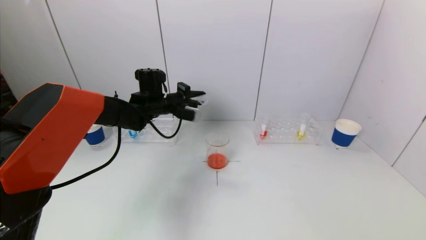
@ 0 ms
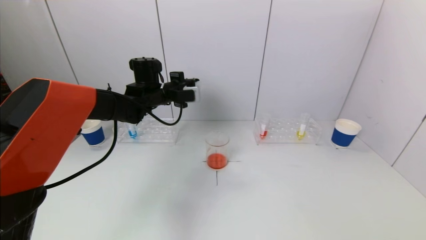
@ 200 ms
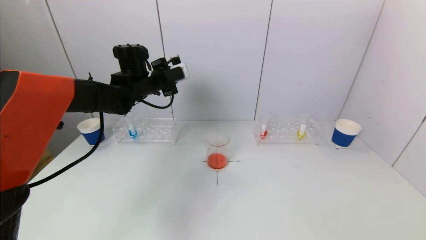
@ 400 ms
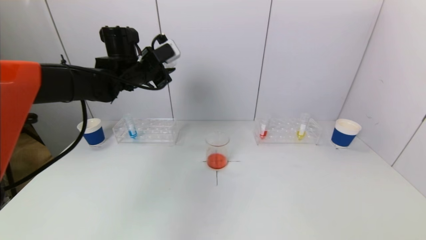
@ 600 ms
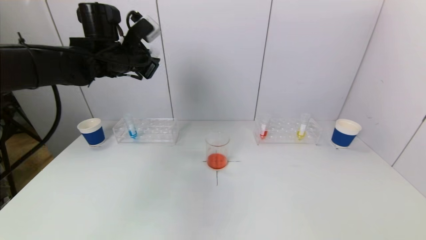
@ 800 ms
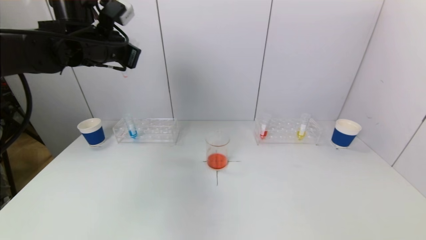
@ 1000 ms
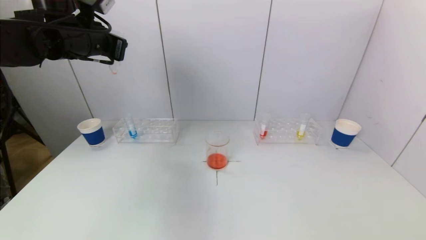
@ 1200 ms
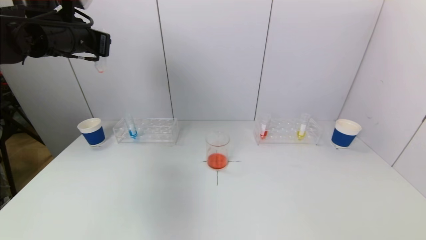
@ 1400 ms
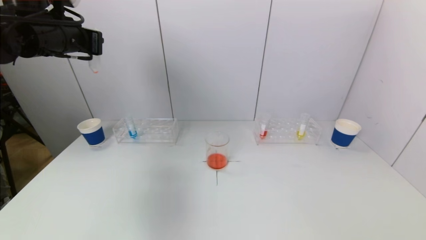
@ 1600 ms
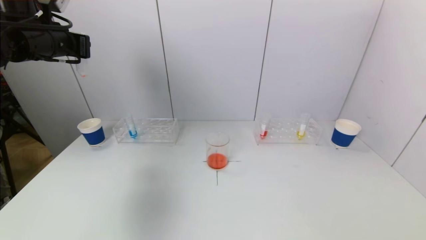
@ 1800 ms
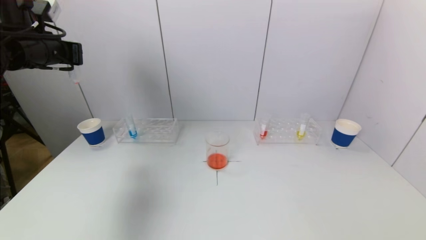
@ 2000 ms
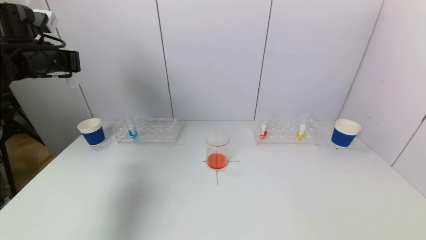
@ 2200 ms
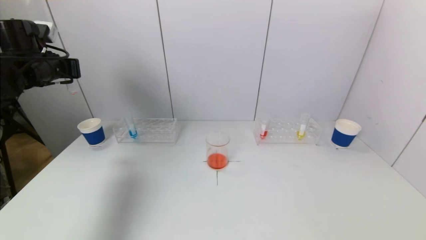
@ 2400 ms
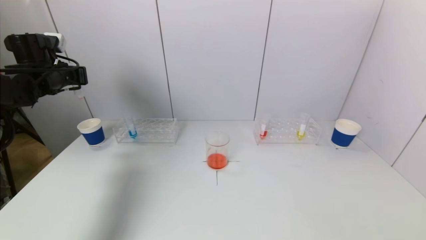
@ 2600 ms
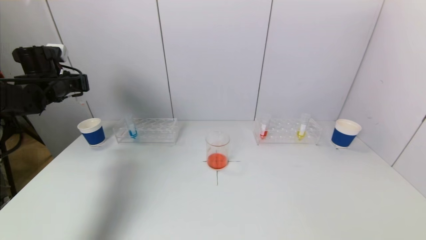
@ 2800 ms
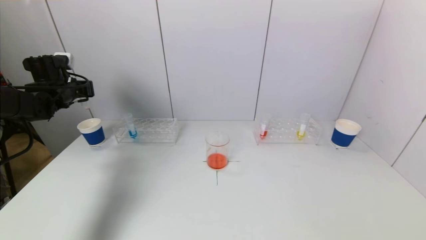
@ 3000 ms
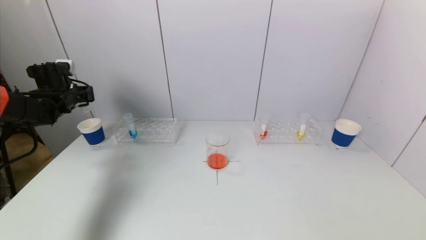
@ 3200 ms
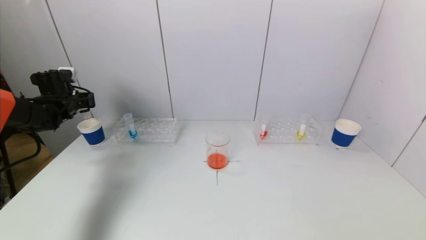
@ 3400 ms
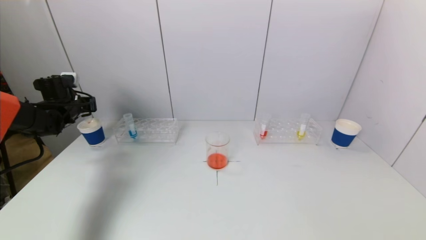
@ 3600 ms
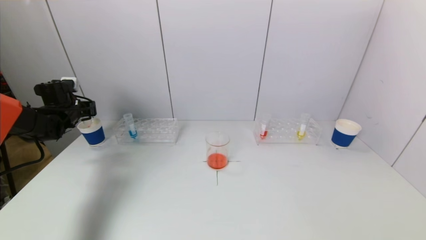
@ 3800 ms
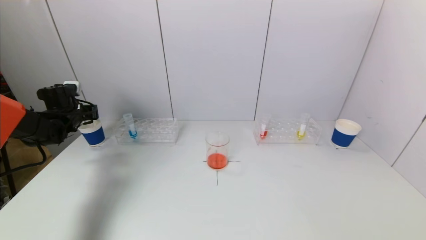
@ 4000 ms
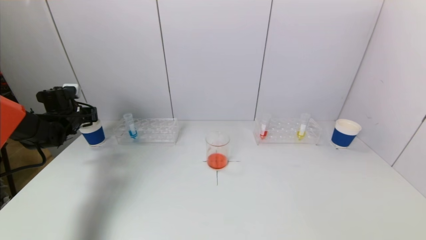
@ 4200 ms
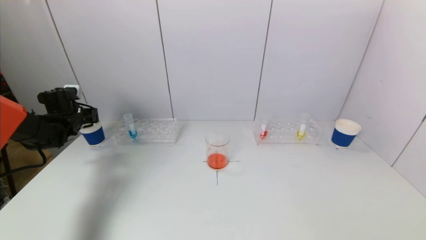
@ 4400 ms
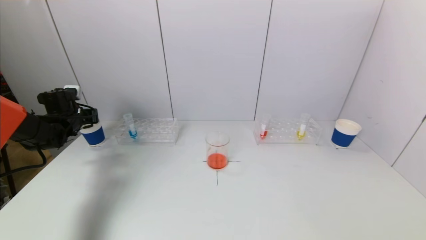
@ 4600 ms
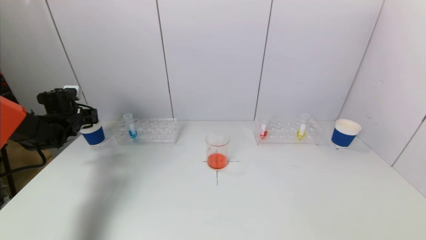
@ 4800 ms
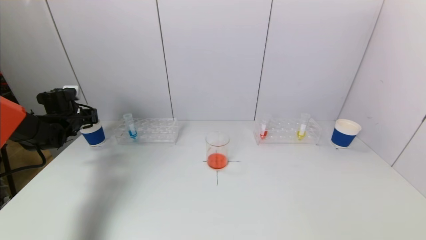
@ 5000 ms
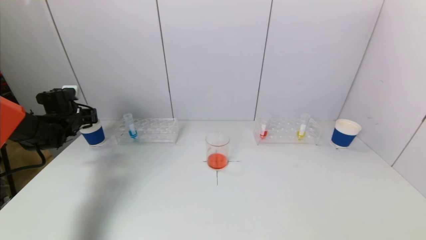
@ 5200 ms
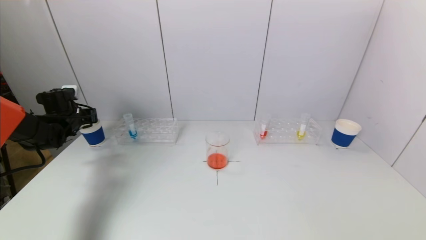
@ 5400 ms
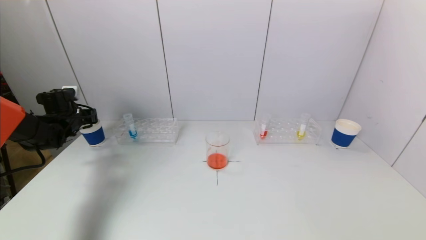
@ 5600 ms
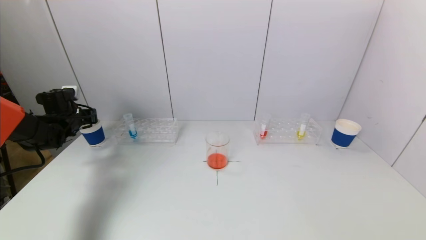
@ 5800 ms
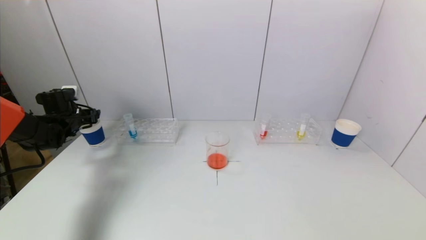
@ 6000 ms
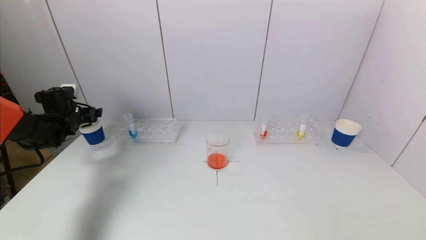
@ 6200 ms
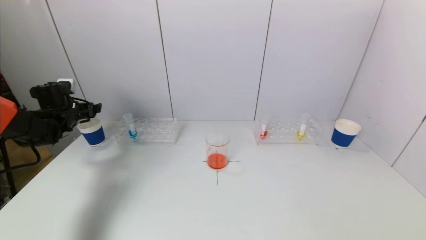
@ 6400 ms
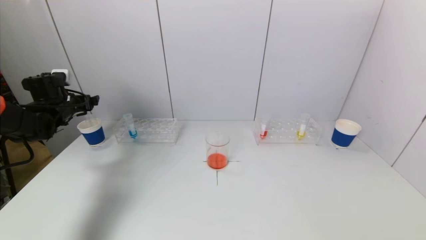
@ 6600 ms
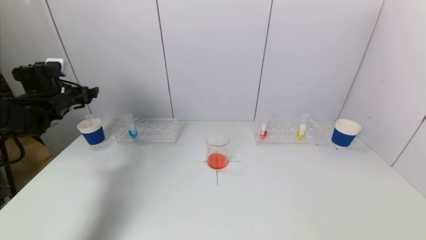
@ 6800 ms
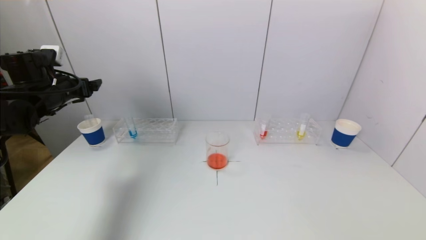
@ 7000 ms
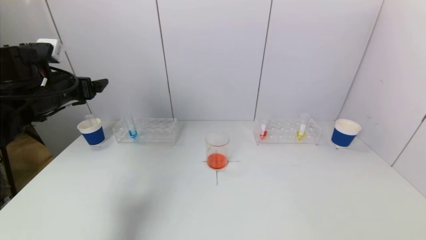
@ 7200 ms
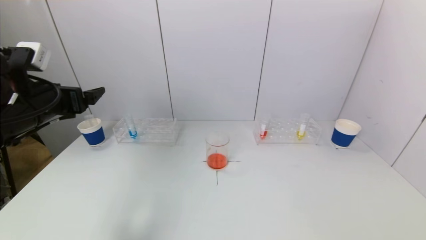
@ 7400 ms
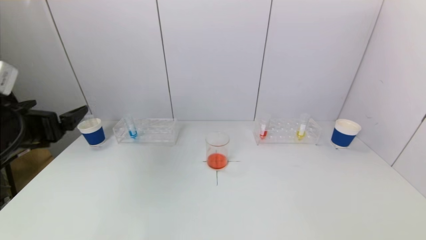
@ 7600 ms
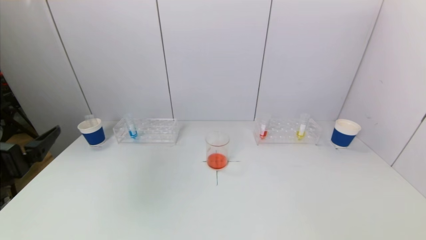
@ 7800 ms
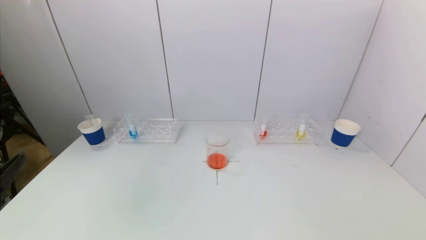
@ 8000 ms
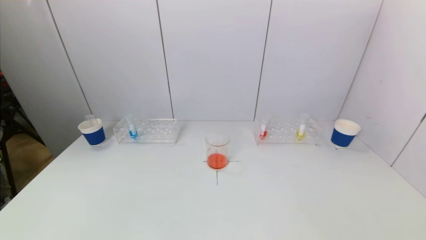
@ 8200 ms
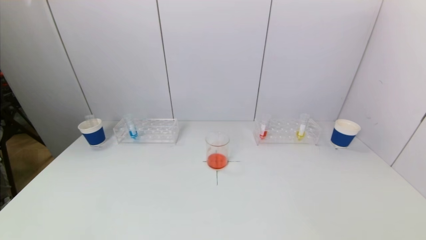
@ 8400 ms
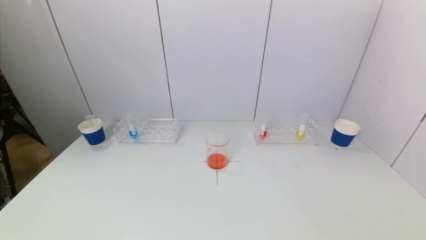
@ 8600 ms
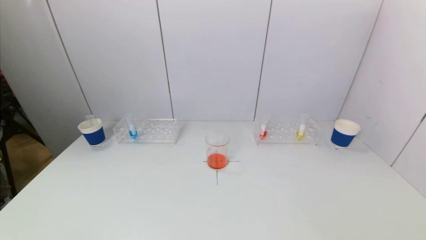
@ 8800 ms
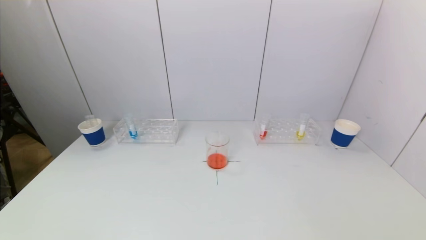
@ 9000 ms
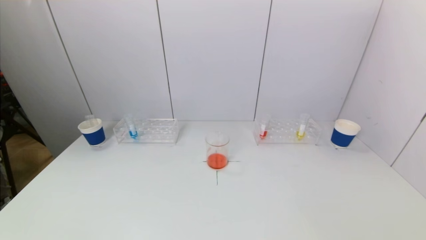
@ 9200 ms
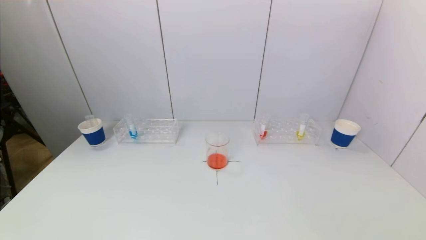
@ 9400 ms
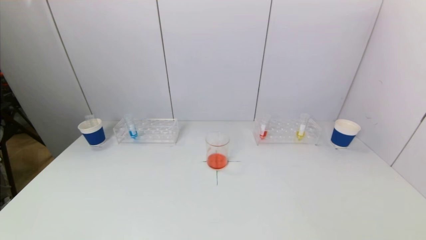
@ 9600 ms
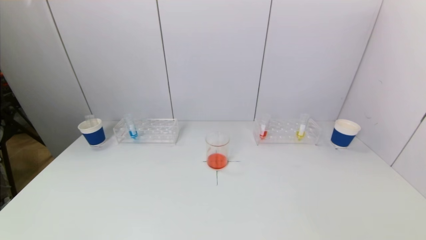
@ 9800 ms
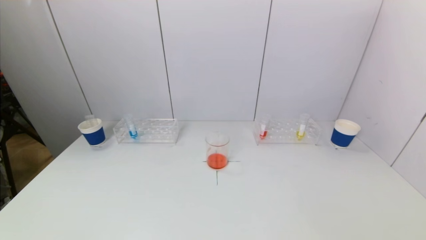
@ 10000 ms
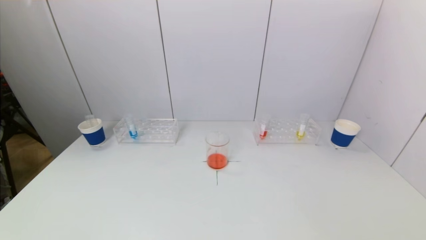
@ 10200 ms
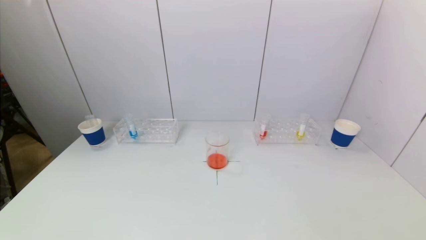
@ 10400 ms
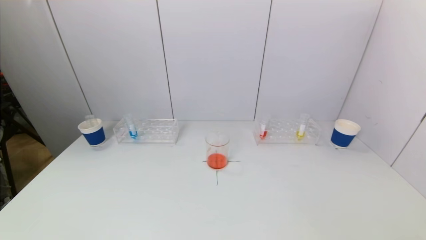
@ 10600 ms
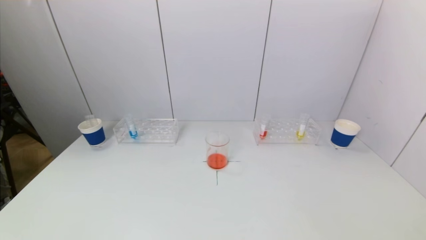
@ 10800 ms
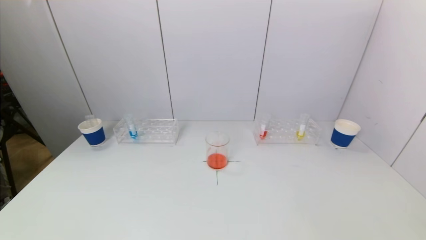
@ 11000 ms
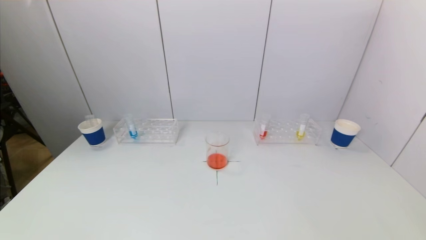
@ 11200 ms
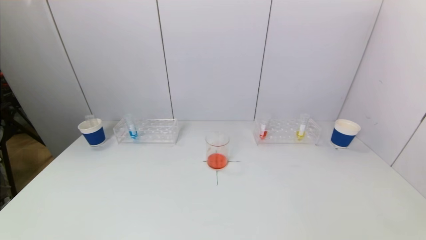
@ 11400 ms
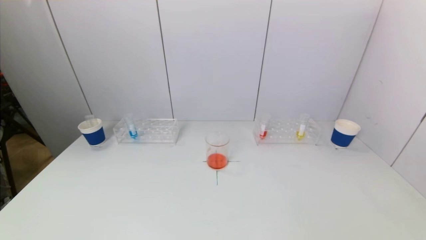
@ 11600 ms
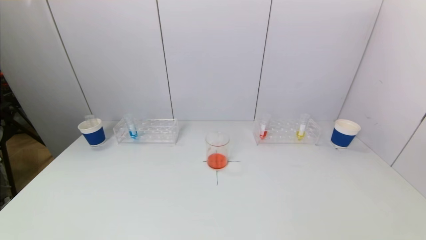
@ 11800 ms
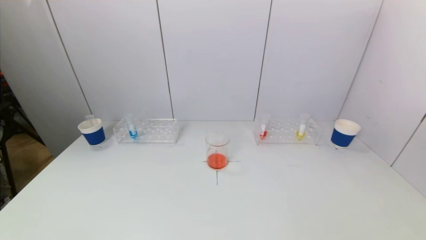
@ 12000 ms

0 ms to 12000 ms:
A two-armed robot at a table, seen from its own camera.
Task of the whole recording: pick up a test tube with pigment on left test tube rack and a test tube with pigment on right test tube rack by grippers and pour them into the beaker.
Step, 0 ms to 6000 ms: Place the test tube into the paper cup with the left gripper.
0 ms to 1600 ms: The left gripper travels upward, to the left and backward by about 25 cm.
1600 ms to 3000 ms: The left gripper travels downward, to the left and forward by some 20 cm.
3000 ms to 4400 ms: The left gripper travels downward by roughly 10 cm.
6000 ms to 7600 ms: The left gripper heads backward, to the right and upward, covering roughly 30 cm.
7600 ms to 9000 ms: The left gripper heads backward and downward, covering roughly 25 cm.

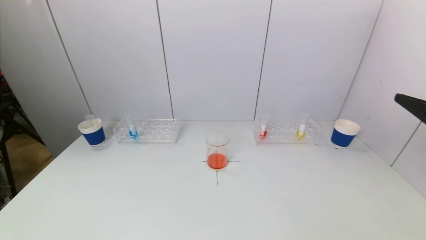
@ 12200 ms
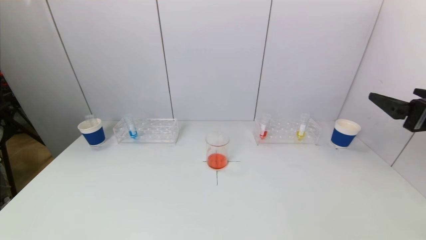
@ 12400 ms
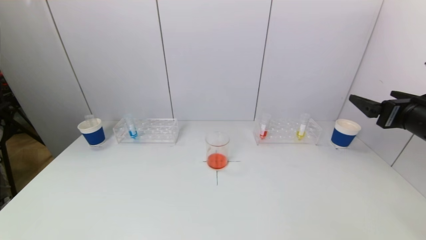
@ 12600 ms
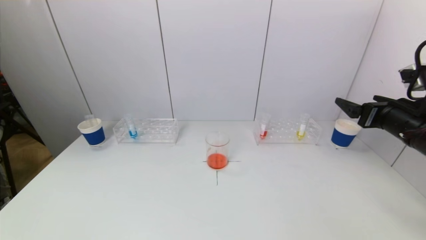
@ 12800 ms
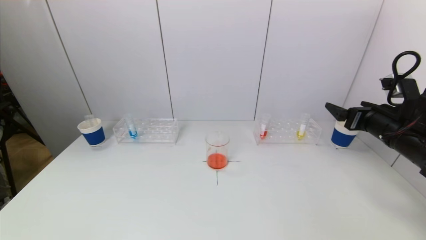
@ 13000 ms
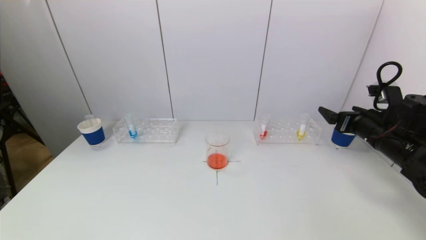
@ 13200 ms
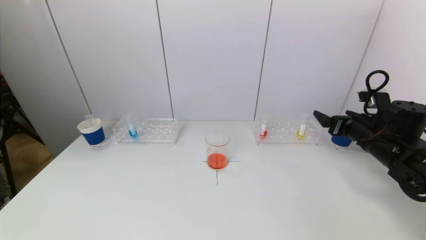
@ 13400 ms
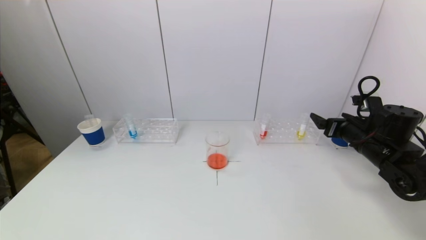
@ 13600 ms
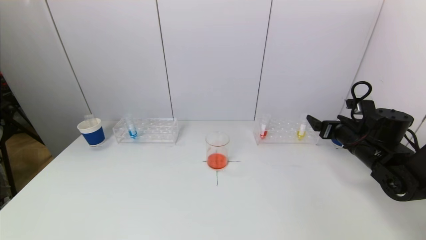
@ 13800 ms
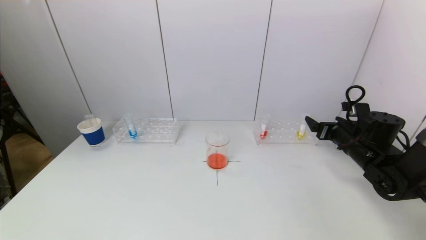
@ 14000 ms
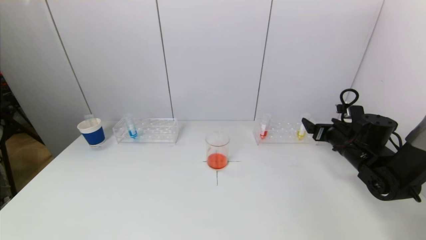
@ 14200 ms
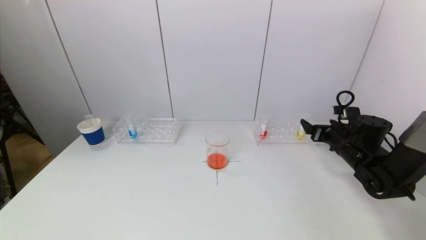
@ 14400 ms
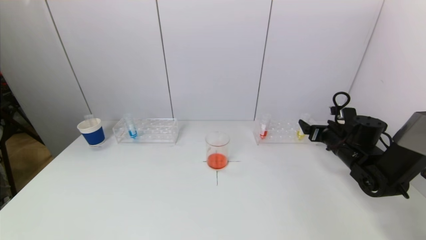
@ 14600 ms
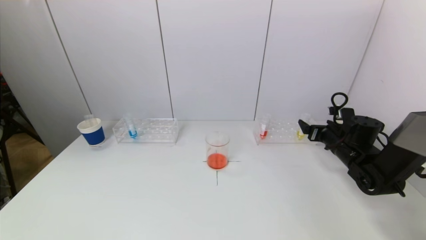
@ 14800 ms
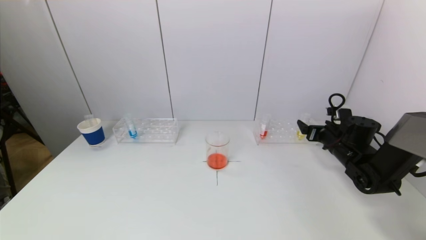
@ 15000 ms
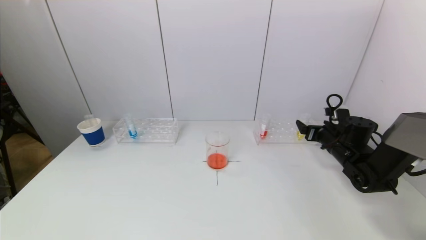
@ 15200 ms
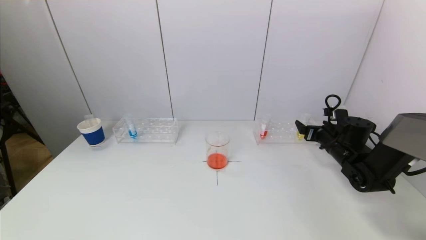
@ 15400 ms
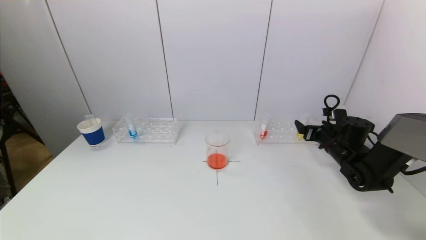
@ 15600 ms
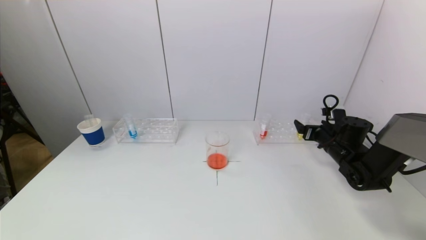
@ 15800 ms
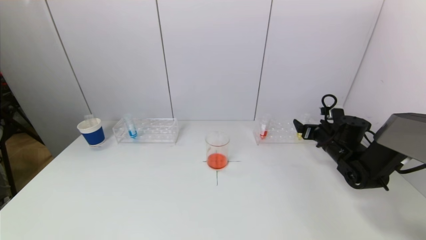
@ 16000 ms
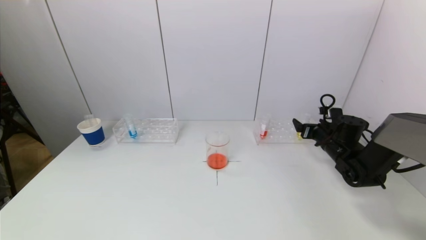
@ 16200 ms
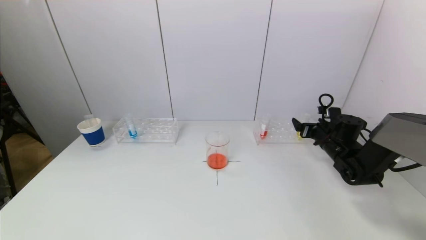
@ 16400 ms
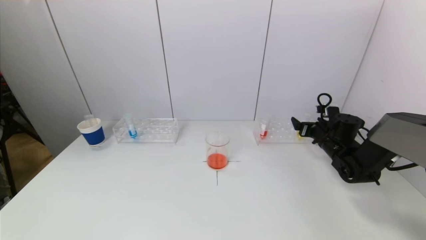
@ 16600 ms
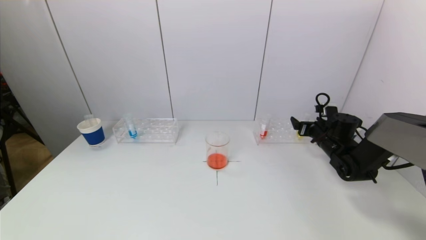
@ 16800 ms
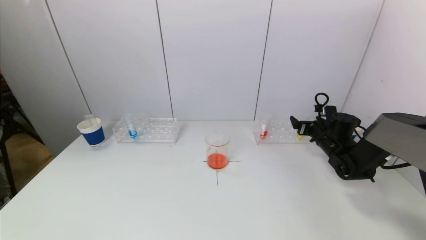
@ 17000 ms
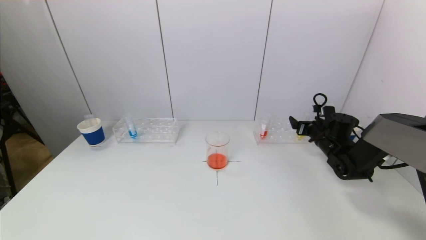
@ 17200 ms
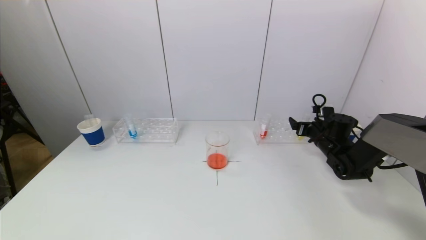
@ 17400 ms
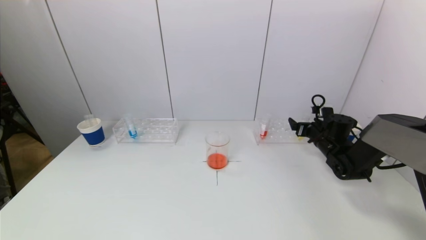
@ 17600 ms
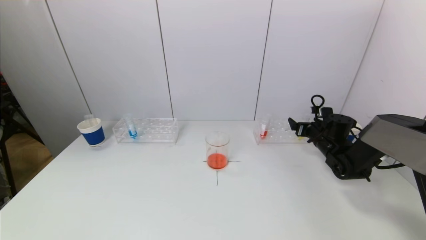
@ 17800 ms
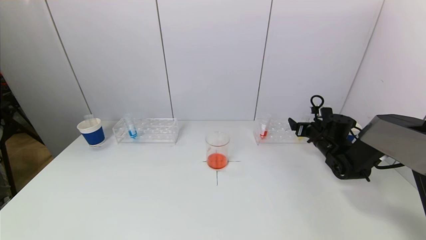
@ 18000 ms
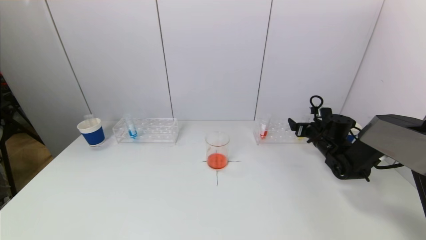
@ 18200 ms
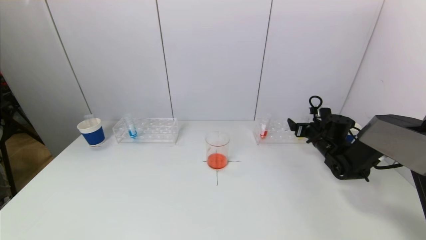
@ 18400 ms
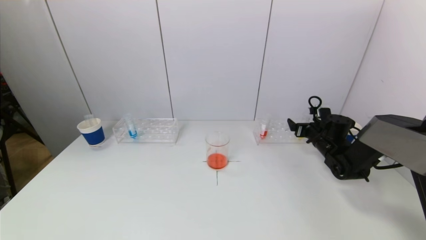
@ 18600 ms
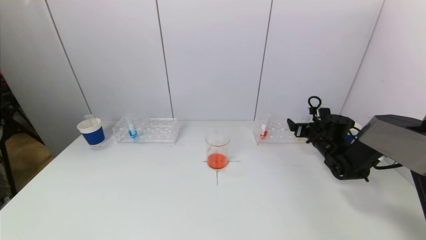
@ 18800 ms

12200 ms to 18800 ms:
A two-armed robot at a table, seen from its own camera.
Task of the whole recording: pick up a test tube with pigment on left test tube rack and a test tube with pigment on right test tube rack by grippers and pour them into the beaker.
12200 ms to 13800 ms: The right gripper moves forward and downward, about 25 cm.
13800 ms to 15400 ms: The right gripper travels forward and downward by about 10 cm.
15400 ms to 17200 ms: The grippers move only a little.
17200 ms to 18800 ms: Both grippers stay put.
